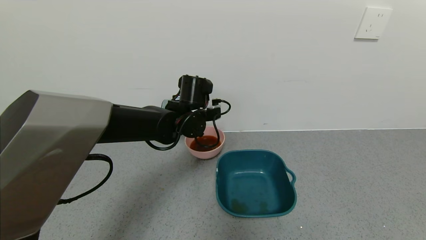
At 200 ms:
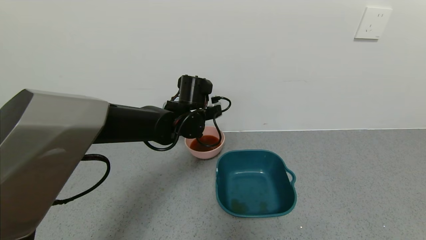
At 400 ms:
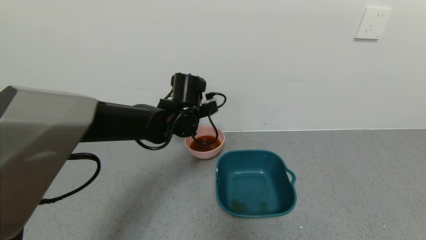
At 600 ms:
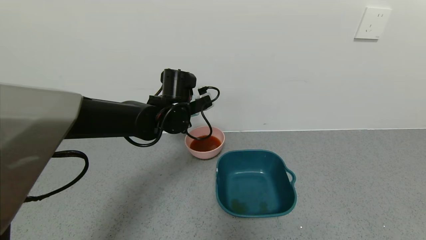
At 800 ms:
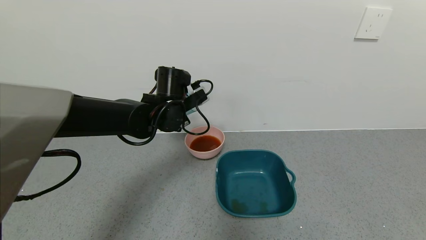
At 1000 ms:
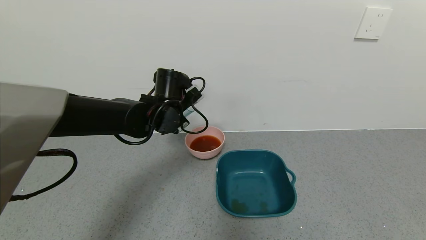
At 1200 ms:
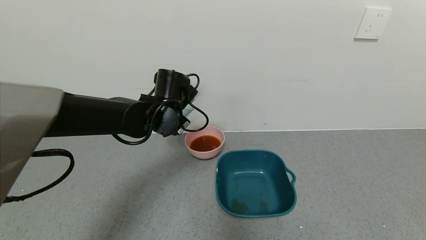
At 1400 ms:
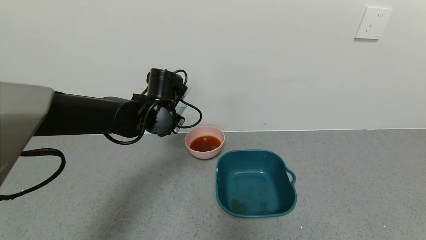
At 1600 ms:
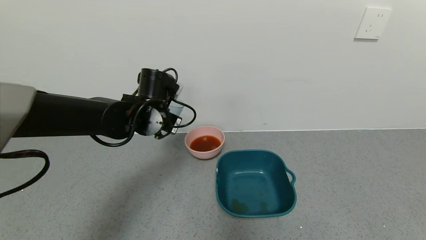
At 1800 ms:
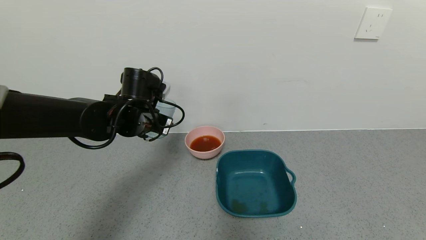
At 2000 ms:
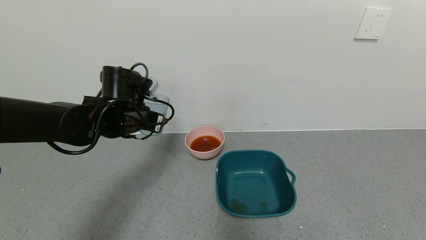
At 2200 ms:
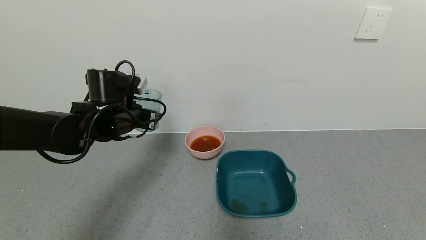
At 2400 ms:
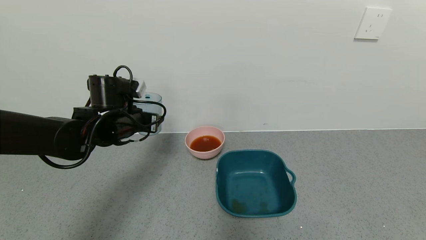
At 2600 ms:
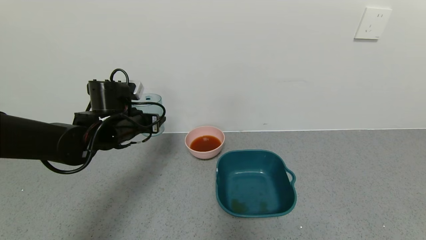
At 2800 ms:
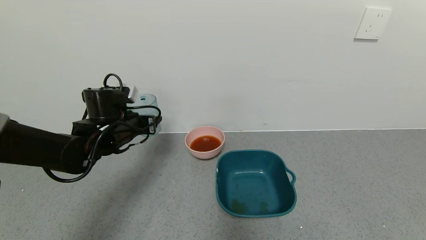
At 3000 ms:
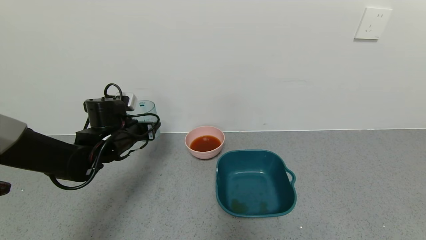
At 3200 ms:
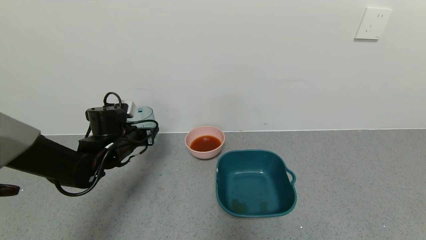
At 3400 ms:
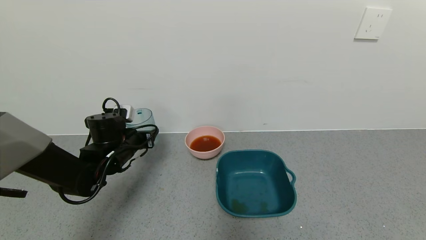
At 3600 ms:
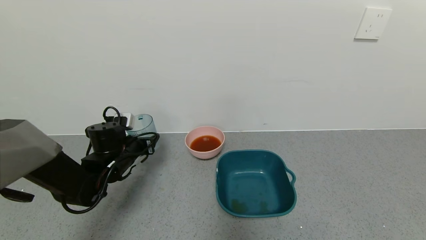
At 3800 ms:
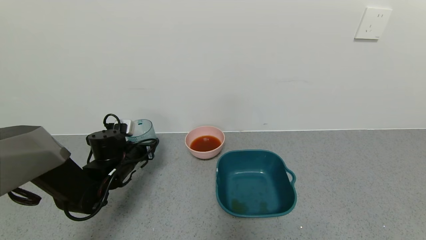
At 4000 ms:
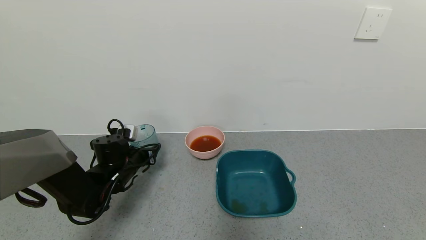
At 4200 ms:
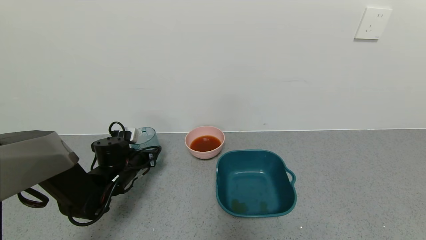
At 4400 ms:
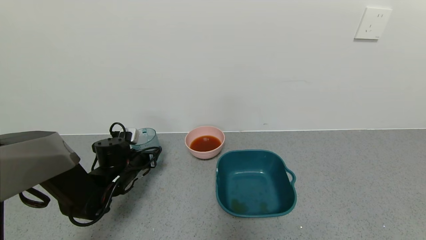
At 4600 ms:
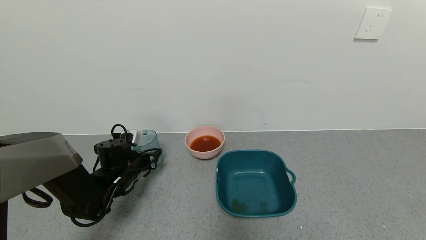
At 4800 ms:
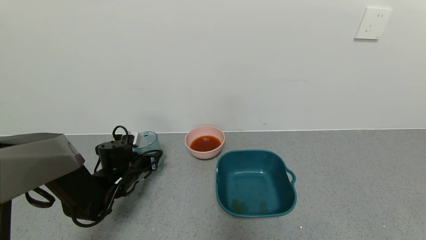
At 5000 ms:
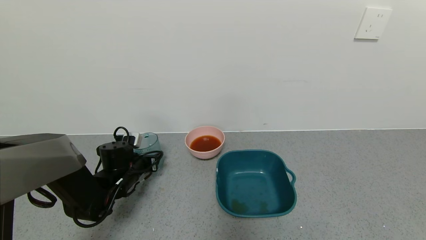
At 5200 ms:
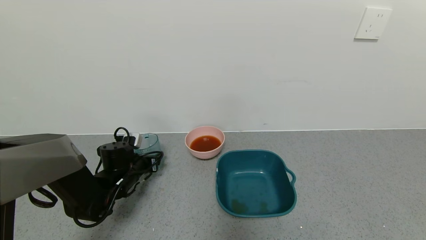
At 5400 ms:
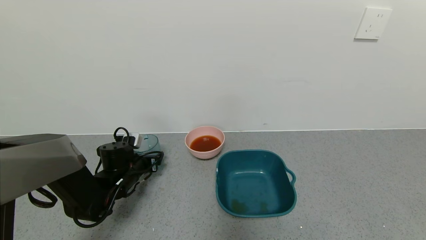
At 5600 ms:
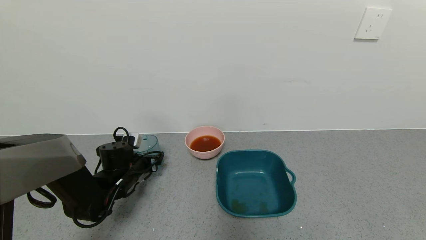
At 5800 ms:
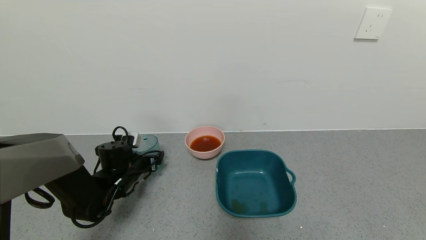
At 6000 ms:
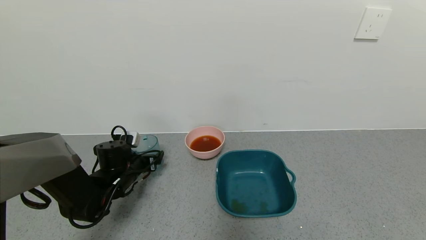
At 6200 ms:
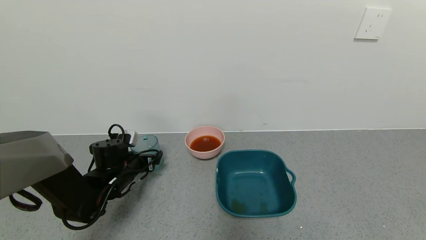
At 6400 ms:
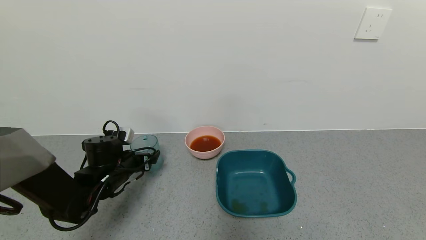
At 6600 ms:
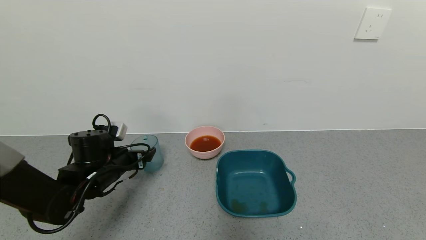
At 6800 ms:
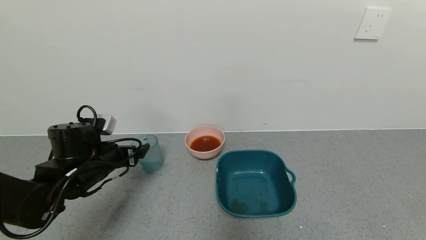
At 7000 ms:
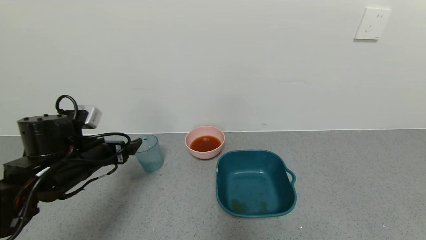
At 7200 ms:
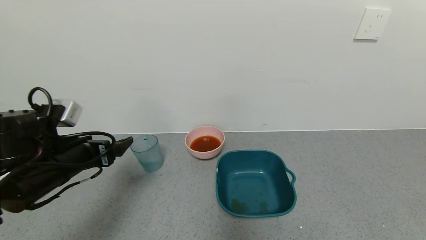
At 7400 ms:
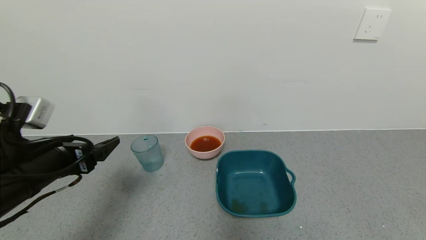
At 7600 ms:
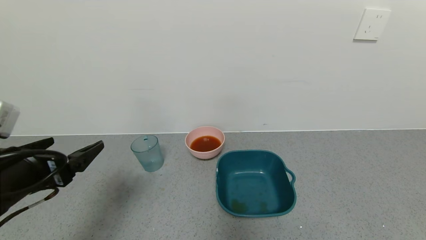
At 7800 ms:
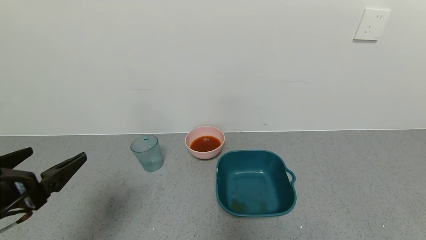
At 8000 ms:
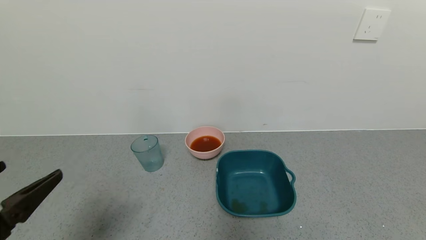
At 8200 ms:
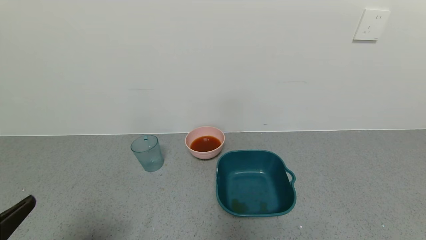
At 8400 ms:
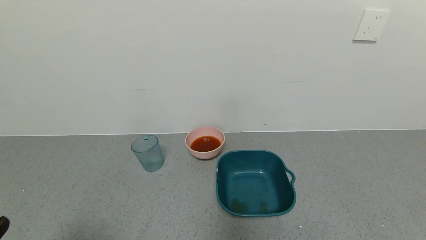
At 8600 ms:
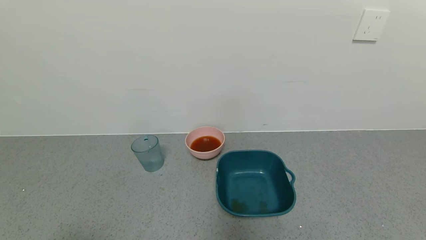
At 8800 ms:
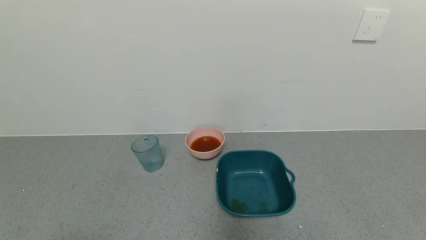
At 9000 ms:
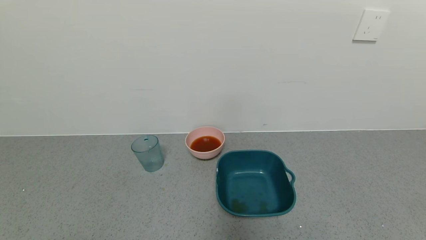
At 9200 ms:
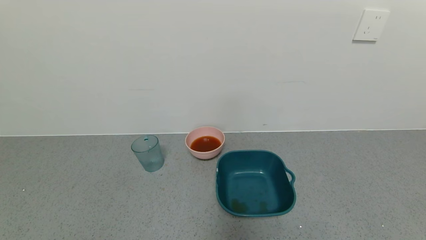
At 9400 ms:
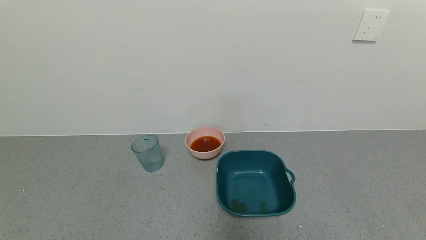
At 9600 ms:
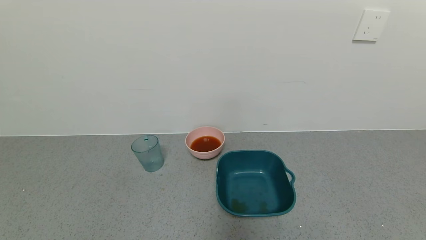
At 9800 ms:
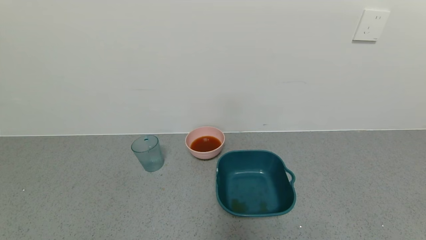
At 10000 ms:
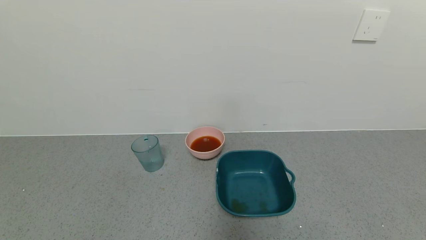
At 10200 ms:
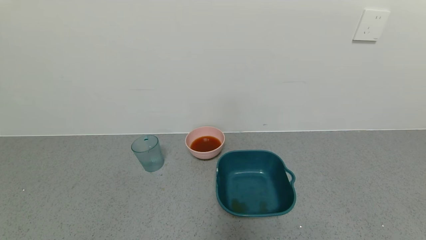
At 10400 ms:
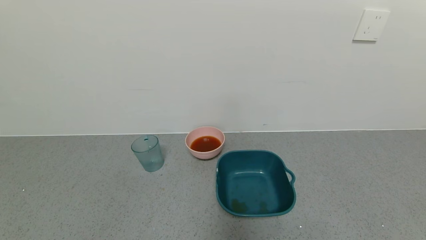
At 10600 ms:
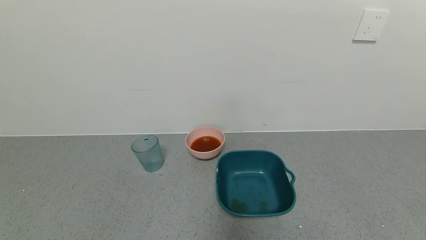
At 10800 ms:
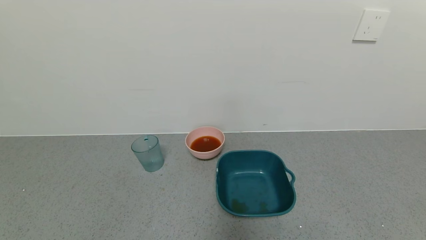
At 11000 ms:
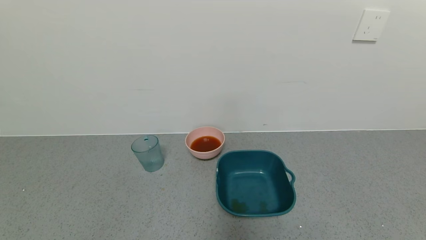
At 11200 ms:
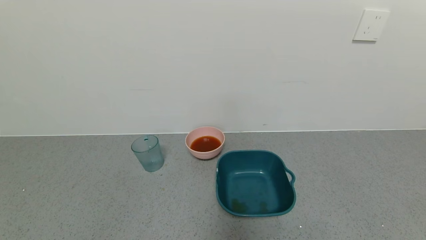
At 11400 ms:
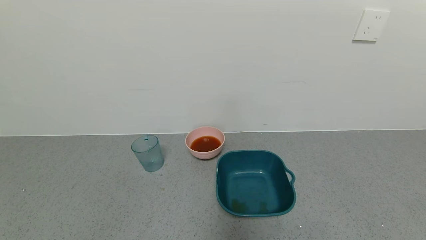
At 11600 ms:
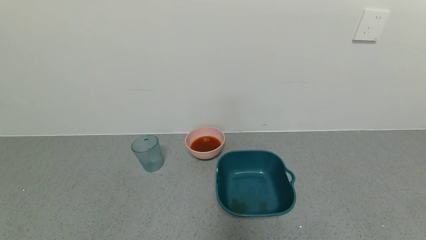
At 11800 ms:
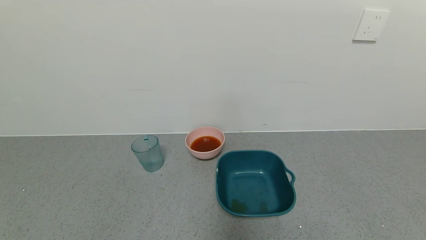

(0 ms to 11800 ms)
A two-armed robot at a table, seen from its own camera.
Task of the whole recording: use a gripper to pick up the cup and pour the liquid into a bowl or tray.
Step, 1000 ms - 5800 ms: Place blue cup with tea on the table with left gripper.
0 ms - 1400 ms: The left gripper is displaced to the left by some 5 cm.
1400 ms - 3000 ms: The left gripper is displaced to the left and downward by roughly 10 cm.
3000 ms - 4400 ms: The left gripper heads downward, covering approximately 10 cm.
4400 ms - 6000 ms: The left gripper opens up.
6000 ms - 7400 ms: The left gripper shifts roughly 20 cm backward and upward.
7400 ms - 8800 ms: The left gripper shifts about 20 cm backward.
10400 ms - 11800 ms: Both grippers stay put.
